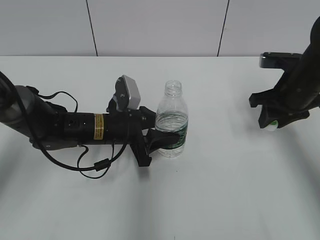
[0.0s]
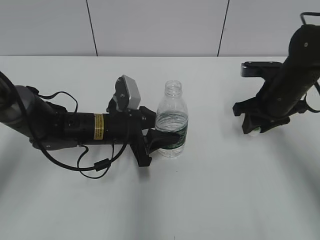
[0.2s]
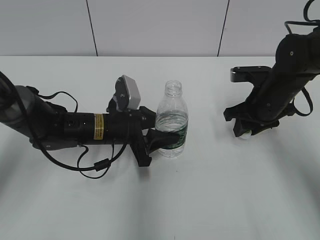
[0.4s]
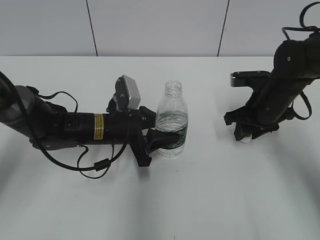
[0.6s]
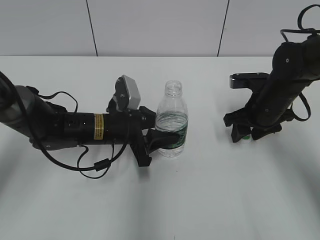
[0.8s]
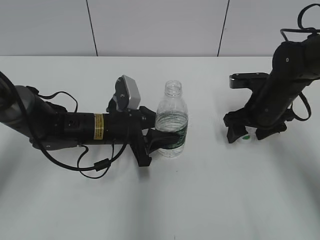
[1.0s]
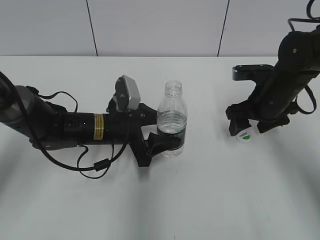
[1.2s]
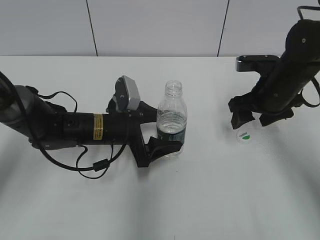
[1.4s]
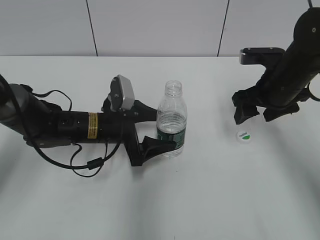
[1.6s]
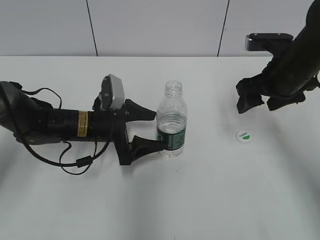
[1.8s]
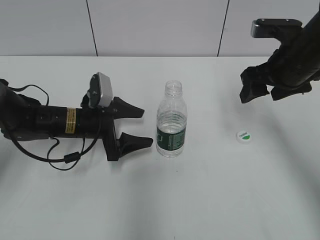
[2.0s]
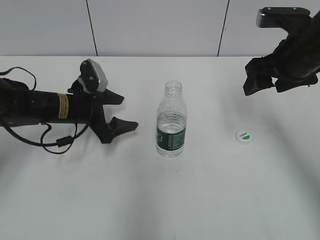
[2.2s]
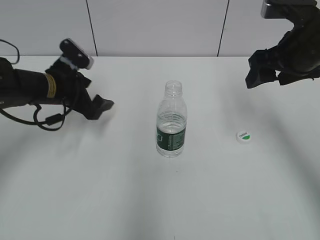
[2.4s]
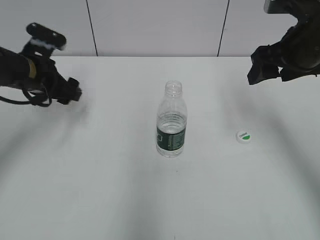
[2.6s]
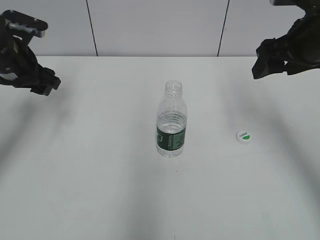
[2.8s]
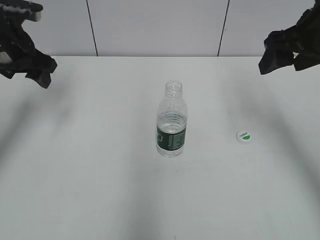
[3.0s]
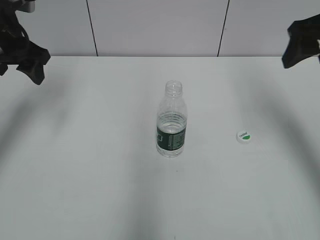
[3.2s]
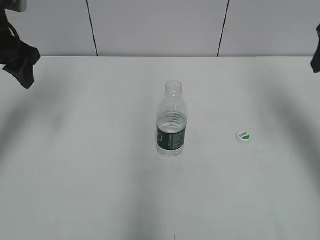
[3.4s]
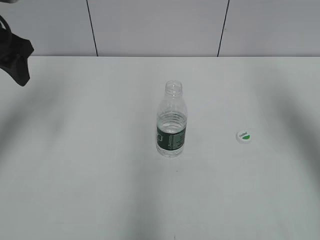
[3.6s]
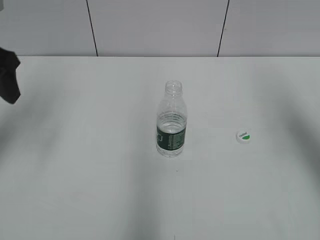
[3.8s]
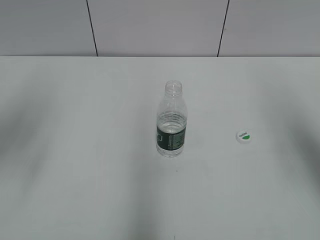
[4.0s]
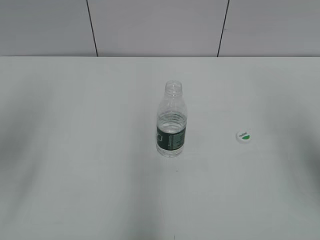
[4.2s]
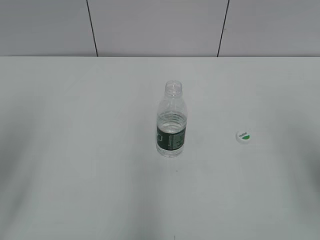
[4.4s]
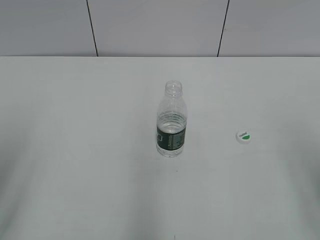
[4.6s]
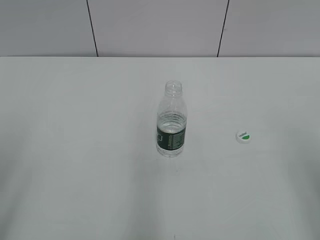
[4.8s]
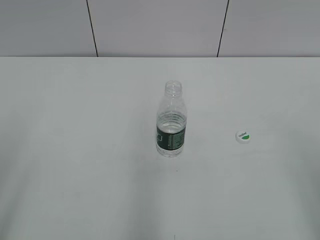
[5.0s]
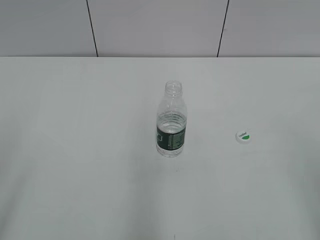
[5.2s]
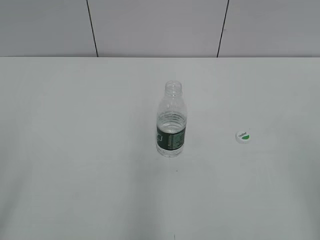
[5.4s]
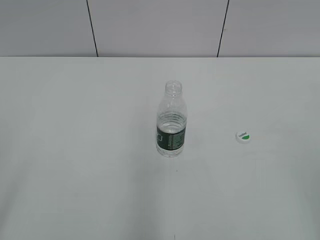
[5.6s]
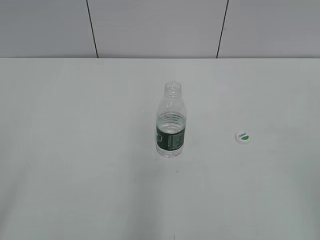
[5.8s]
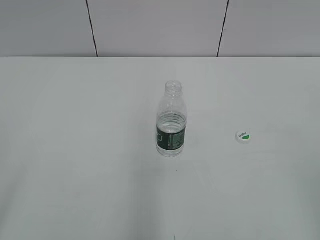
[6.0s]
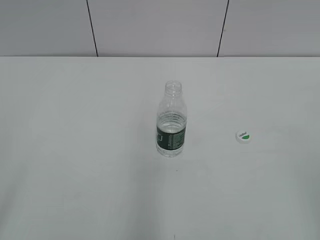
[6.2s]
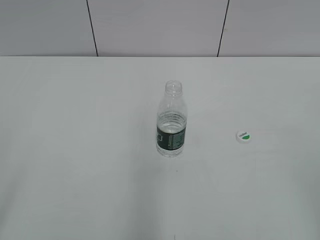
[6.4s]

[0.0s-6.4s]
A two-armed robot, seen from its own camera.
Step, 1.4s to 1.8s: Place the bottle on the table with the left gripper.
0.0s to 1.6s: The left gripper opens. Meanwhile the right gripper opens its fingers.
1.6s to 3.2s: The left gripper travels upward and to the left by roughly 25 cm. Meanwhile the right gripper goes about 15 cm upward.
3.2s to 4.8s: The grippers both shift backward by some 25 cm.

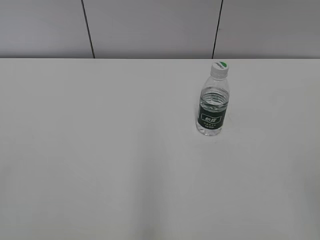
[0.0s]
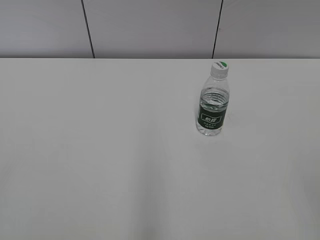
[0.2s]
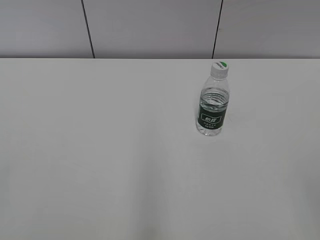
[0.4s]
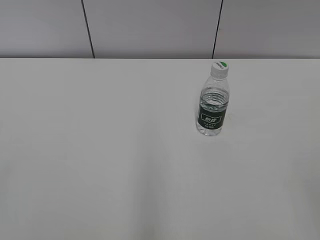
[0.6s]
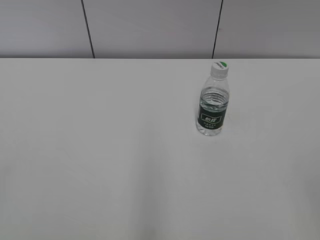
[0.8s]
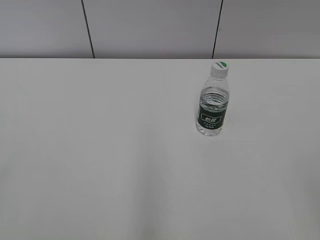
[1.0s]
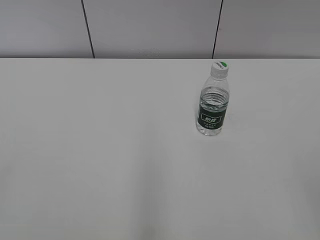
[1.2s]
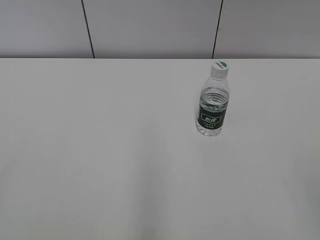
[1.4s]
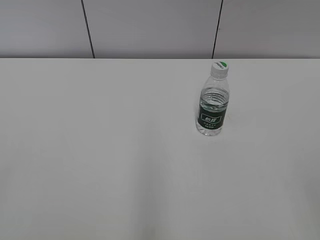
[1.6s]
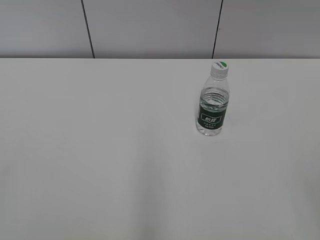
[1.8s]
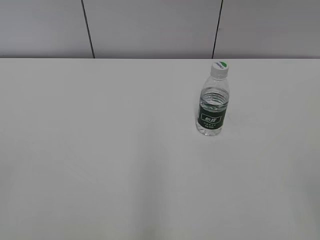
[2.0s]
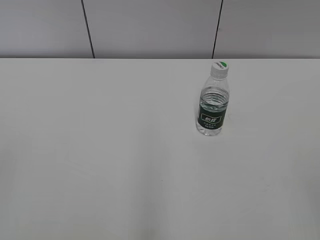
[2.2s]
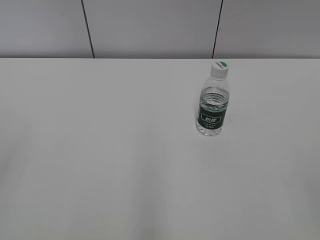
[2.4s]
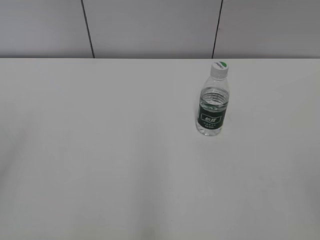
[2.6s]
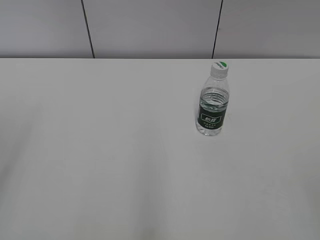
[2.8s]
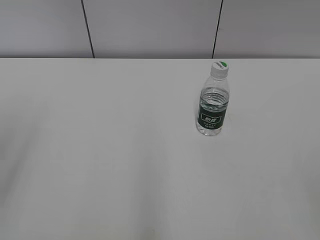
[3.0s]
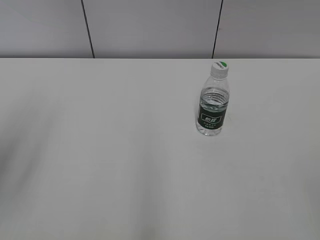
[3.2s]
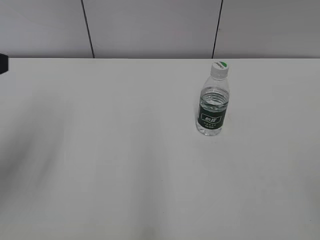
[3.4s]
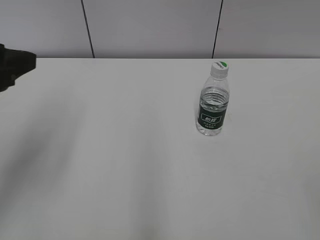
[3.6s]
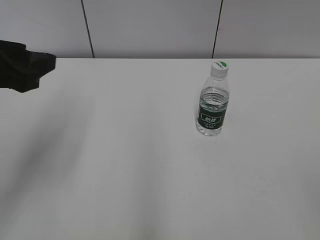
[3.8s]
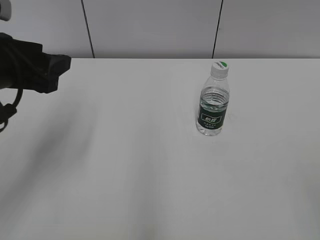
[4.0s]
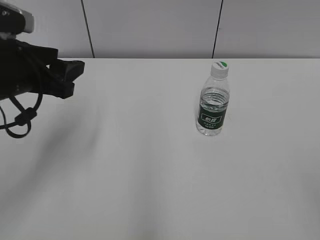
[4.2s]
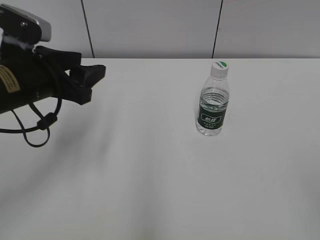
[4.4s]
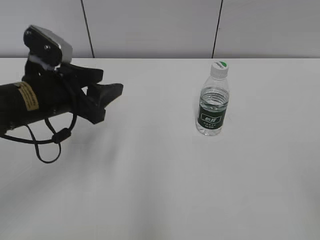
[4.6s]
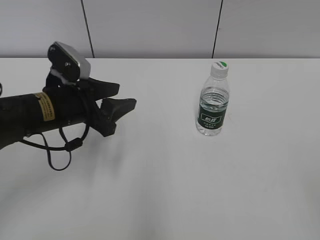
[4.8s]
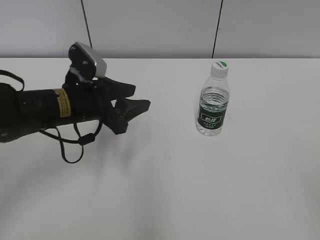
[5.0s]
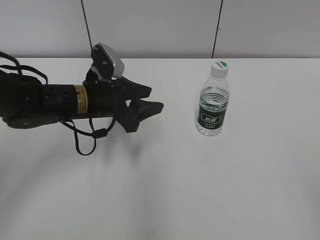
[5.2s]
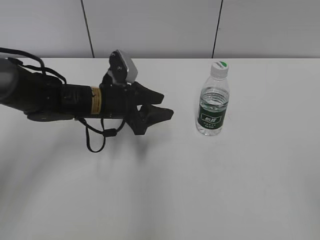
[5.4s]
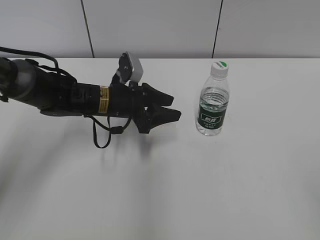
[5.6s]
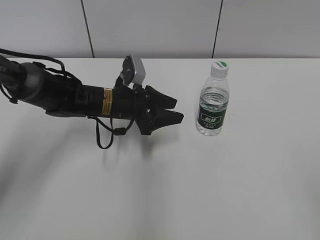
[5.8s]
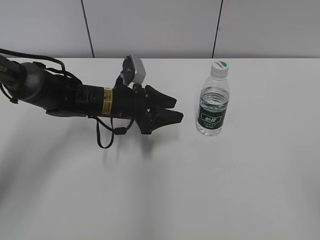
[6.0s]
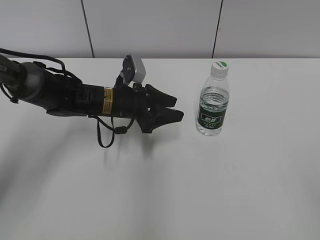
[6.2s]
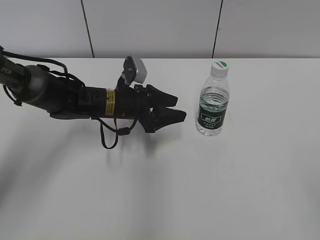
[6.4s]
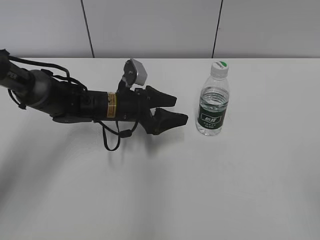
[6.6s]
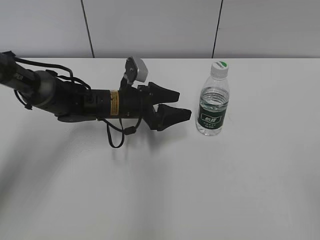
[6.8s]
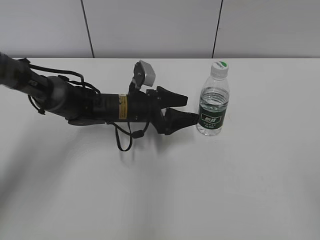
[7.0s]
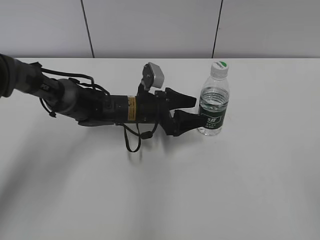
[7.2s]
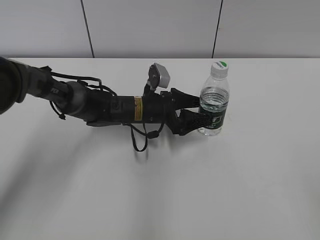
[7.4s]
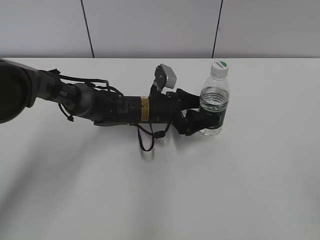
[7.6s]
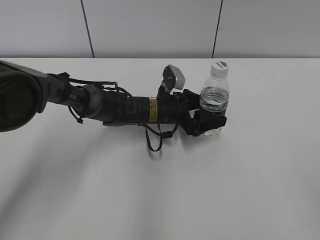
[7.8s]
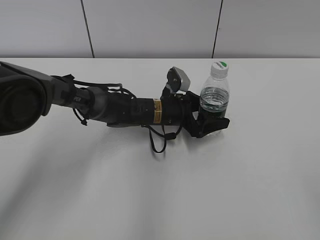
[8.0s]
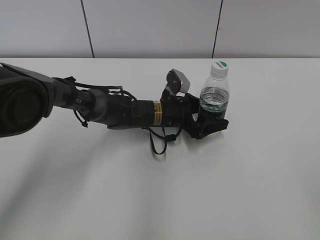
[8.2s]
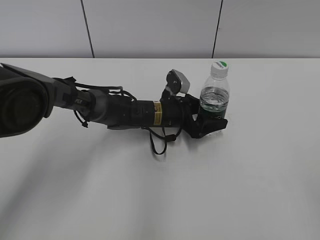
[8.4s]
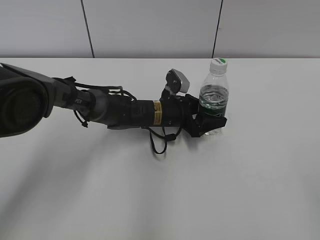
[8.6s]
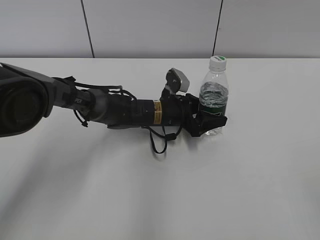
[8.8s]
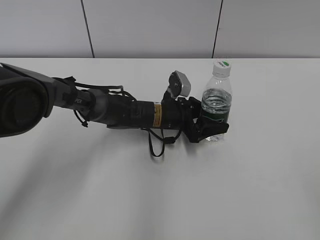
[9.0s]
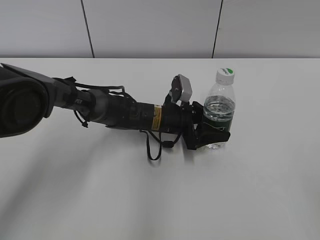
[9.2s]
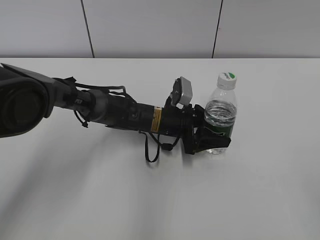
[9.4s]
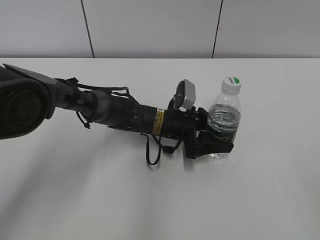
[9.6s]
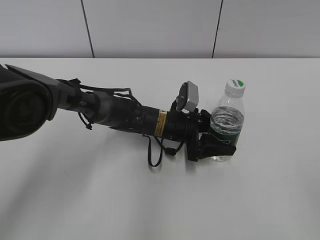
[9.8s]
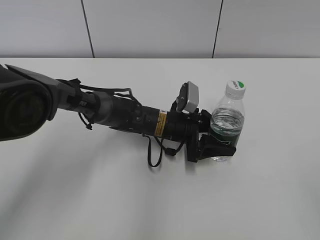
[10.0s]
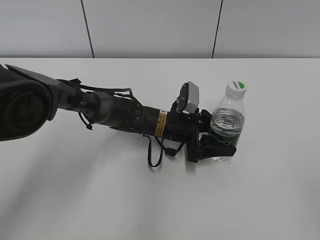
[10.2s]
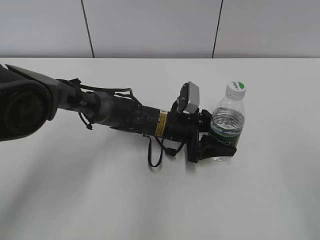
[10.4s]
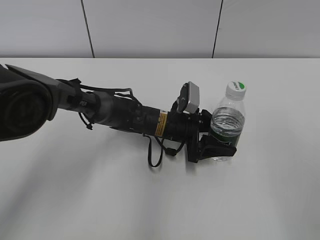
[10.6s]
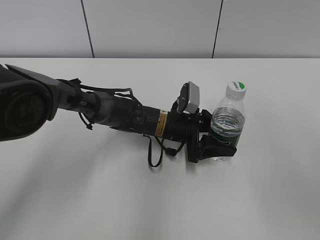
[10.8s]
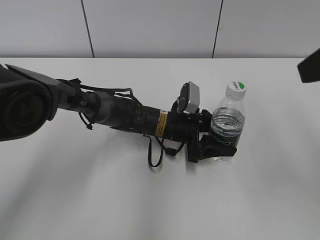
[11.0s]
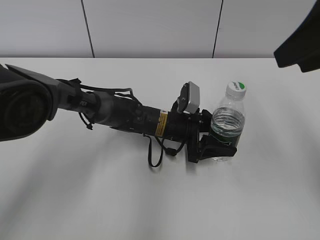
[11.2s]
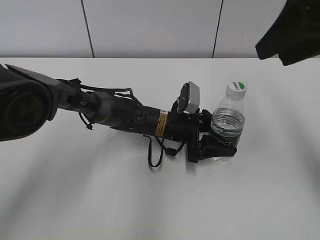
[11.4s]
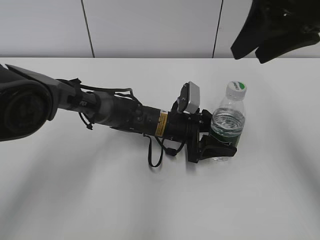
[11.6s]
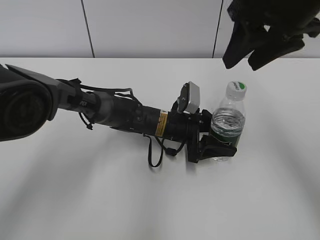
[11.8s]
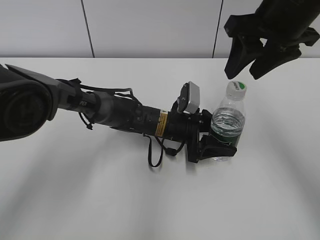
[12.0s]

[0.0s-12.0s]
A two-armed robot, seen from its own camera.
Step, 0.0s to 8.6s: Grab the C'estbon with the left hand.
Step, 9.0s to 10.4s: Move the C'estbon to the right with the left hand.
3.0s to 4.4s: The left gripper is displaced forward, downward and to the right by roughly 20 cm.
4.4s to 6.0s: The left gripper shifts some 20 cm downward, to the right and forward.
6.0s to 7.6s: The left gripper goes about 5 cm to the right, and opens its fingers.
7.6s to 9.0s: The left gripper closes.
9.0s to 10.4s: The right gripper shifts by about 5 cm.
10.4s to 12.0s: The right gripper travels forward by some 30 cm.

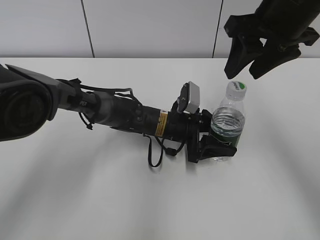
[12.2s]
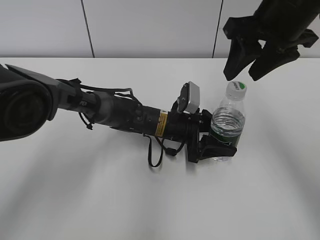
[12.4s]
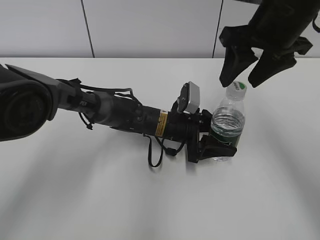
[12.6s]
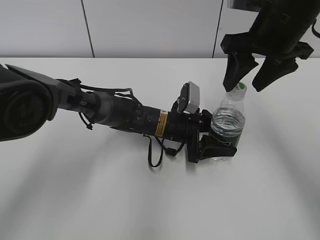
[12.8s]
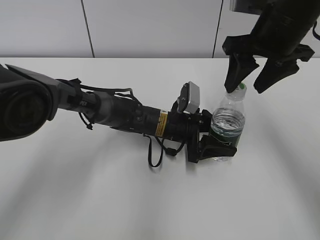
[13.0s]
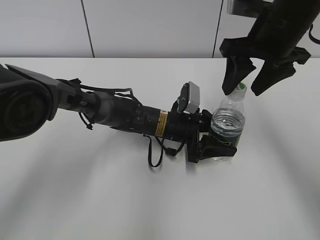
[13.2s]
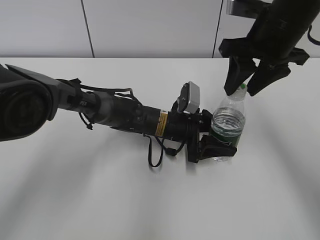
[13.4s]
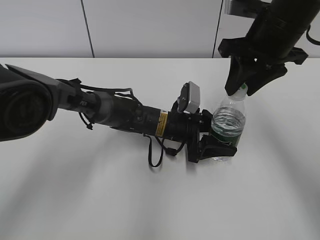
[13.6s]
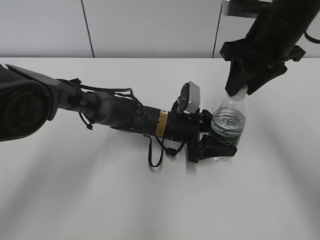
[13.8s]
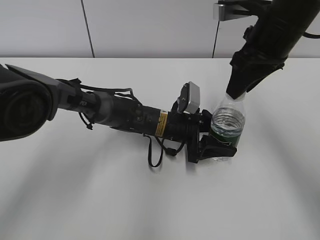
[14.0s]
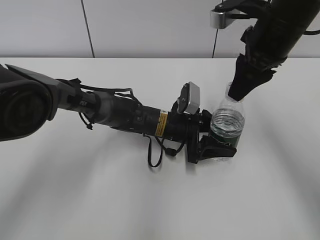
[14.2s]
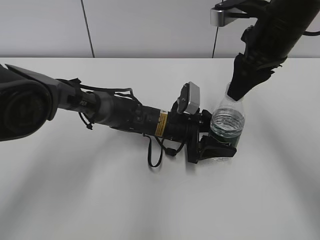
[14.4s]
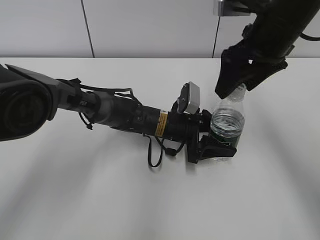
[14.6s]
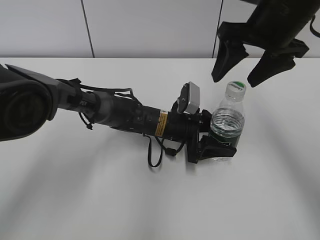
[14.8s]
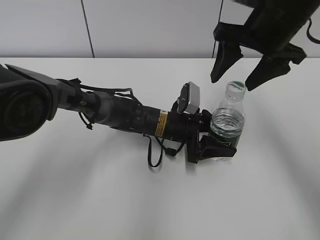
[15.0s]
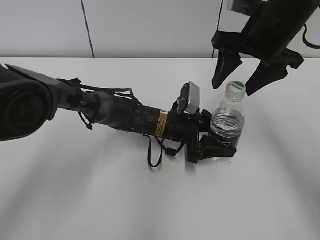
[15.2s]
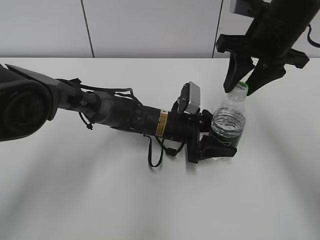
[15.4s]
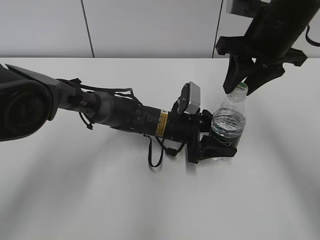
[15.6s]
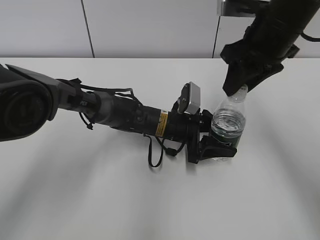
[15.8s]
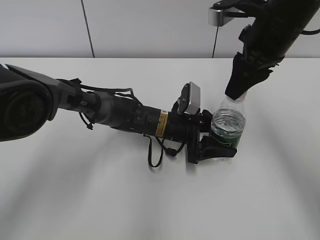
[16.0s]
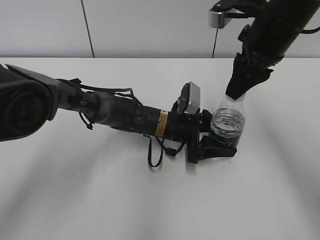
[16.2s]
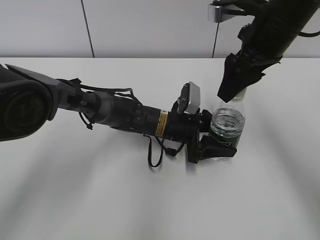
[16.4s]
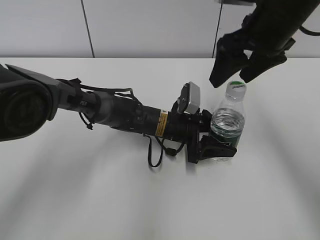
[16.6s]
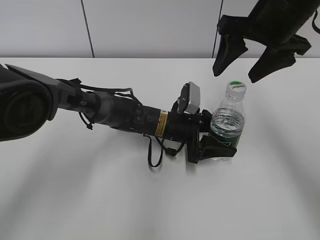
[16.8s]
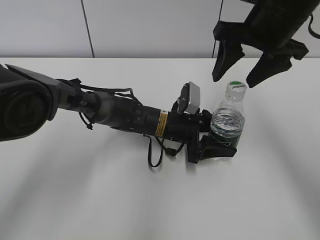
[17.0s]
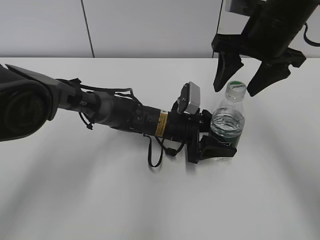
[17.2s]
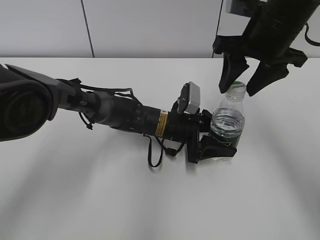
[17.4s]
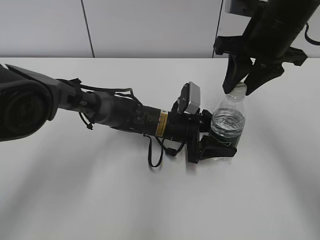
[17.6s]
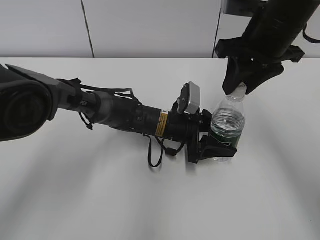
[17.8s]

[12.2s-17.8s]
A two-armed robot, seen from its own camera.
12.2s to 13.6s: The right gripper closes up.
13.6s to 15.0s: The right gripper opens up.
15.0s to 16.4s: The right gripper closes and opens again.
16.4s to 17.8s: The right gripper closes its fingers.
